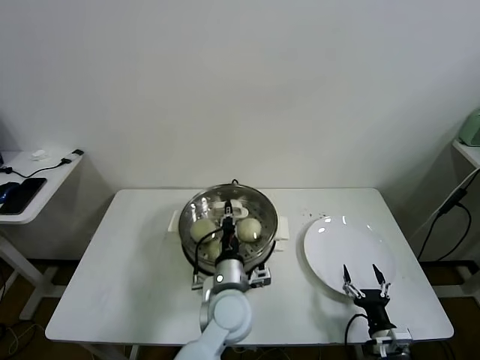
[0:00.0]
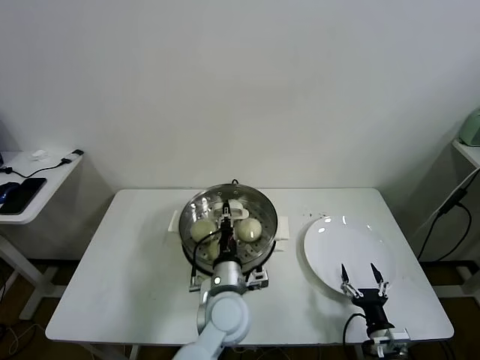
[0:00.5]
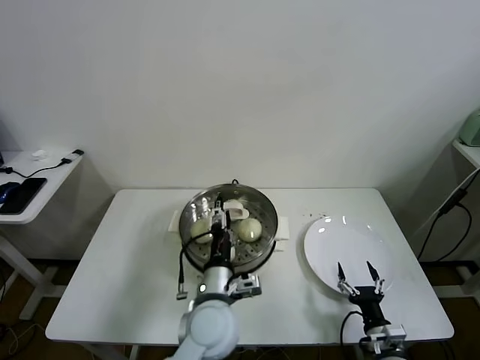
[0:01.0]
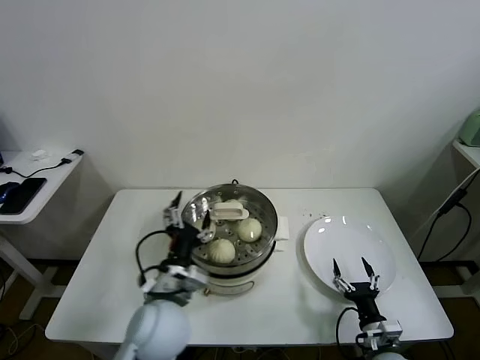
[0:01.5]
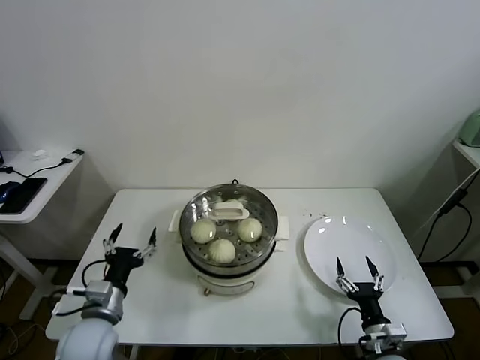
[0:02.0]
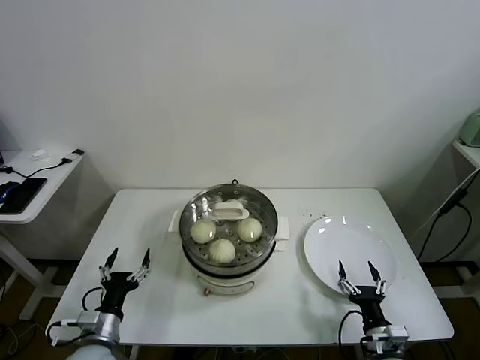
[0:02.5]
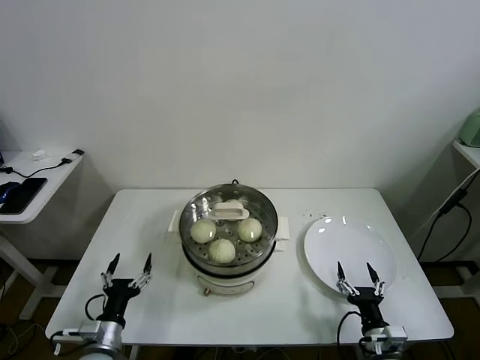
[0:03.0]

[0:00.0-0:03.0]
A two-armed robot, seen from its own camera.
Task of the whole recording: take steamed baozi put them in steamer.
0:00.0 to 0:01.5: The left gripper moves to the left and upward, approximately 10 cm, and opens.
0:01.5 to 0:03.0: The left gripper goes some 25 cm to the left and downward.

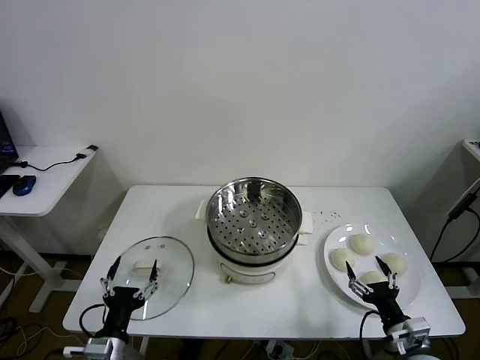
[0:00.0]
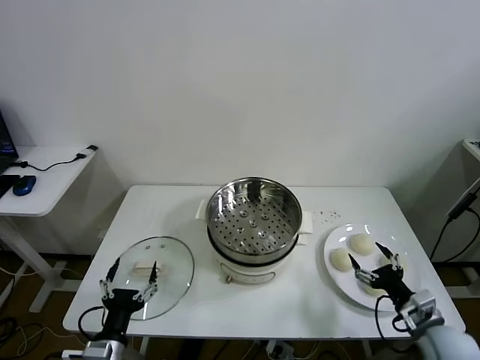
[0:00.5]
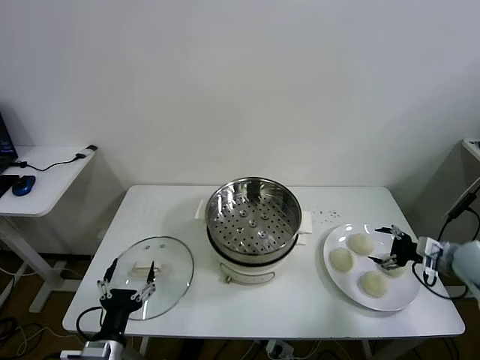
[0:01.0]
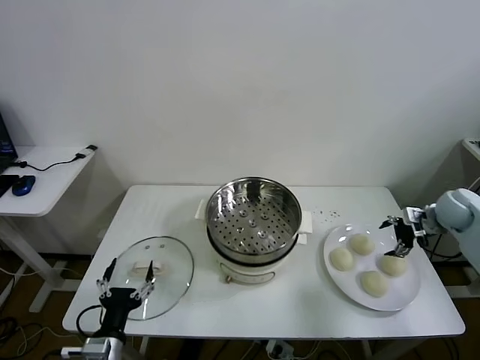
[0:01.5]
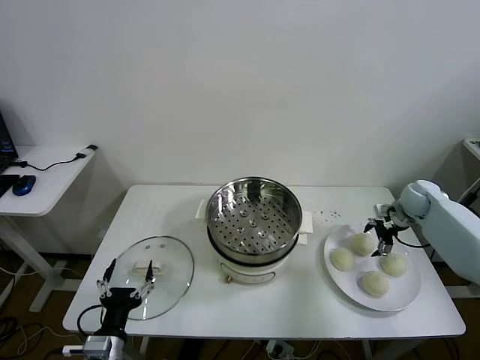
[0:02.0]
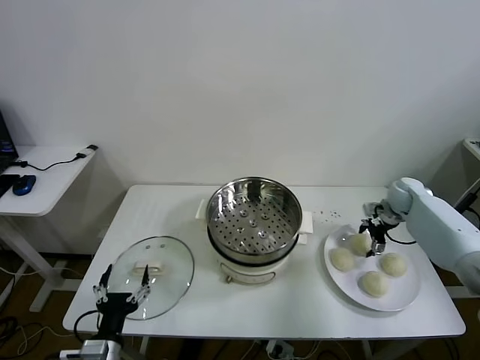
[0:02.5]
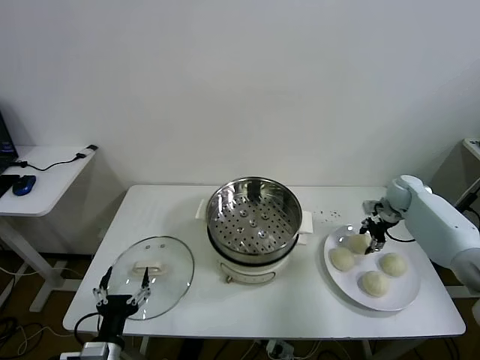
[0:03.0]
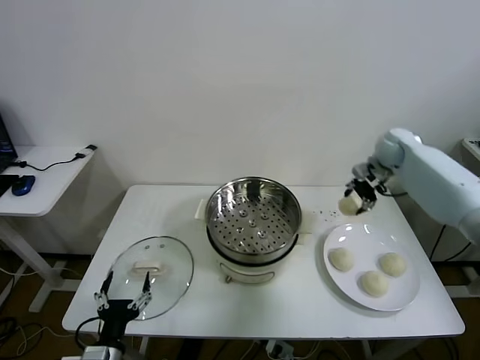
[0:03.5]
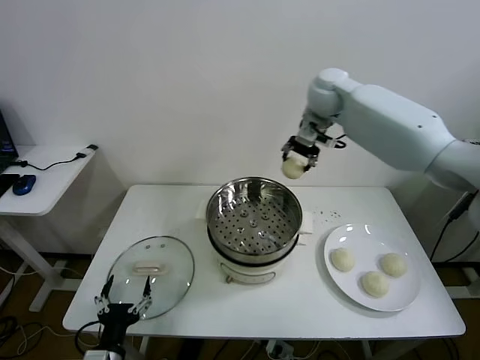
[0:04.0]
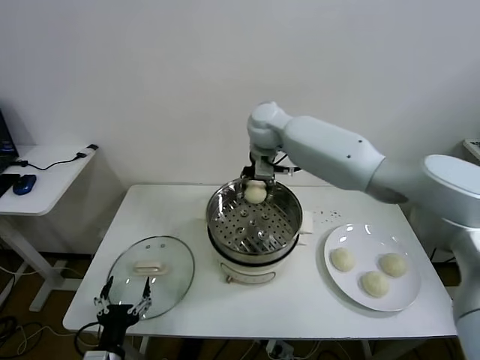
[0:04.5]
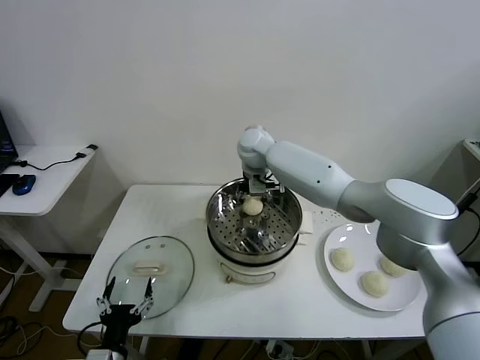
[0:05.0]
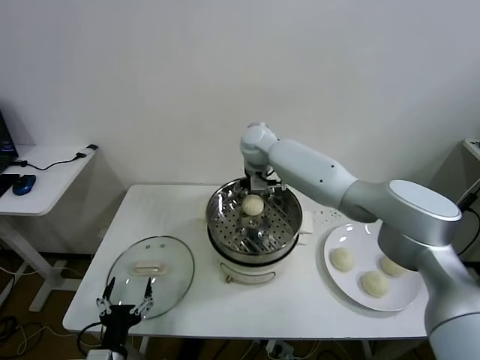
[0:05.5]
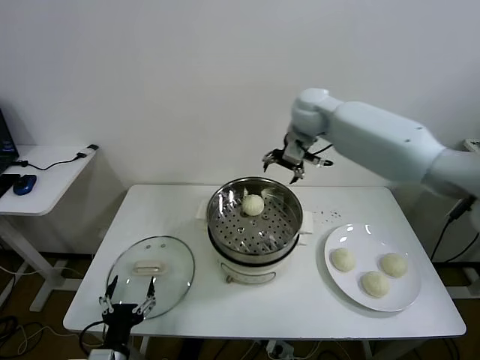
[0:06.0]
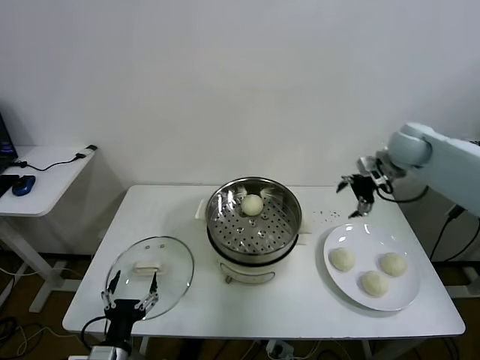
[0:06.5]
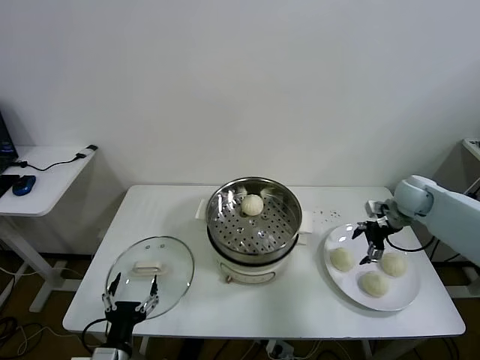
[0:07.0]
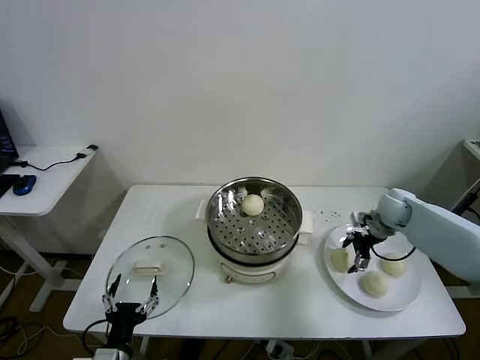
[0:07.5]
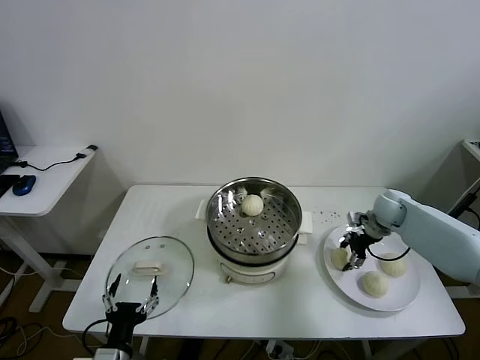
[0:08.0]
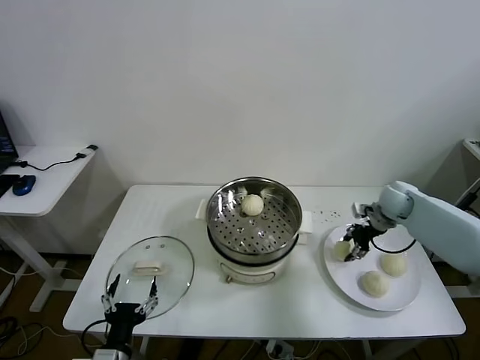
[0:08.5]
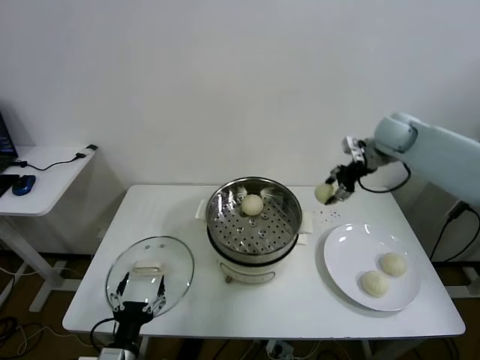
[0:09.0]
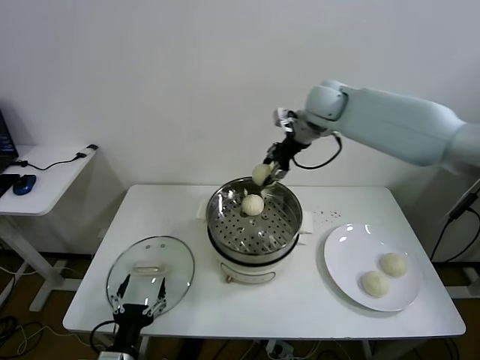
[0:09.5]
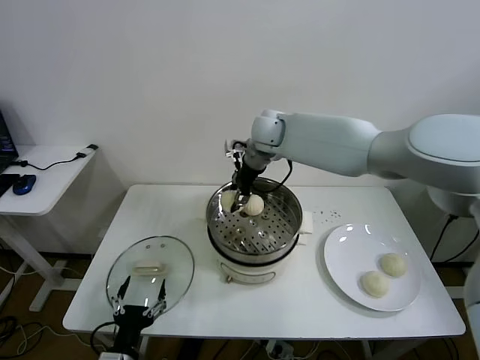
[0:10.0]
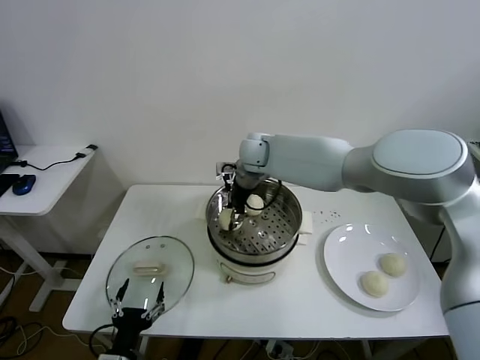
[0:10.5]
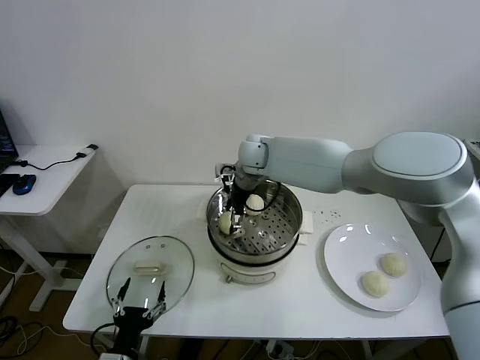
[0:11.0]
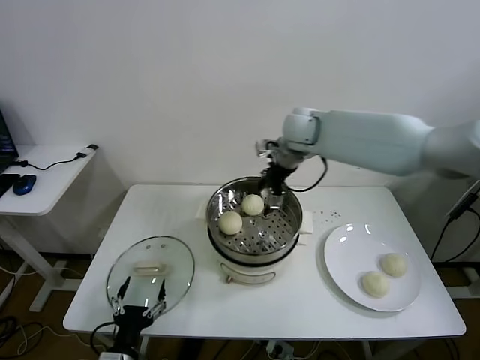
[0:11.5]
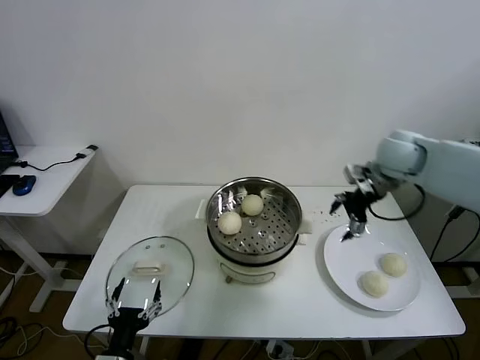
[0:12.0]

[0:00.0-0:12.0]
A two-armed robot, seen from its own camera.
Task of the whole recording: take steamed baozi put them in steamer.
Step, 0:00.0 to 0:02.5: Grasp the baozi in the plate with right gripper.
Step, 0:03.0 to 0:05.5: Place the baozi on the steamer with right gripper.
Step, 0:06.0 to 0:07.5: Grasp the baozi in the plate with right gripper.
Step, 0:08.0 to 0:11.0: Place the baozi on the steamer with right gripper.
0:02.0 to 0:04.0: The right gripper moves to the left and upward, some 40 cm, and closes.
0:04.0 to 0:06.0: The right gripper goes to the left and returns, some 10 cm each way, and opens.
0:06.0 to 0:08.0: The right gripper is displaced downward and to the right by approximately 35 cm, and closes up.
0:08.0 to 0:10.0: The right gripper travels to the left and upward by some 40 cm.
0:10.0 to 0:12.0: The right gripper heads to the right, covering roughly 30 cm, and opens up.

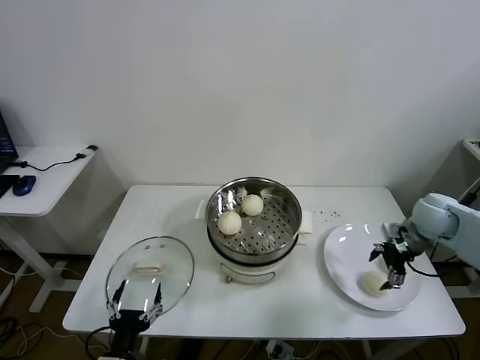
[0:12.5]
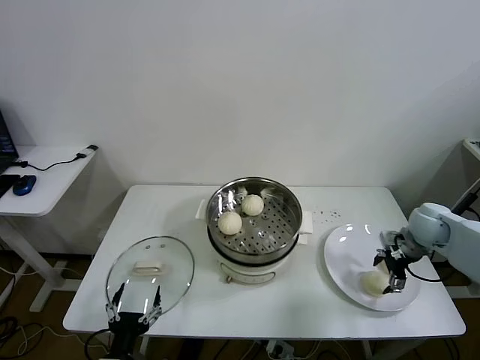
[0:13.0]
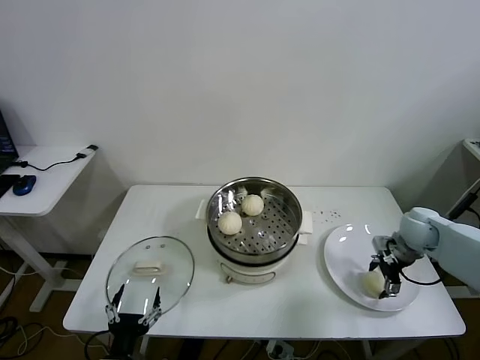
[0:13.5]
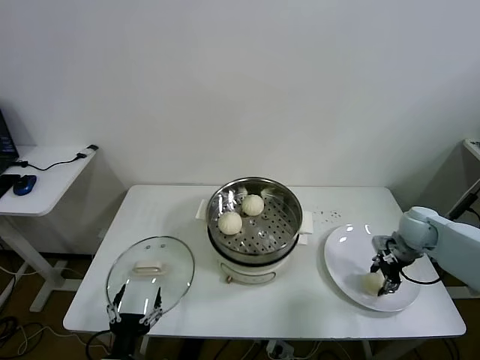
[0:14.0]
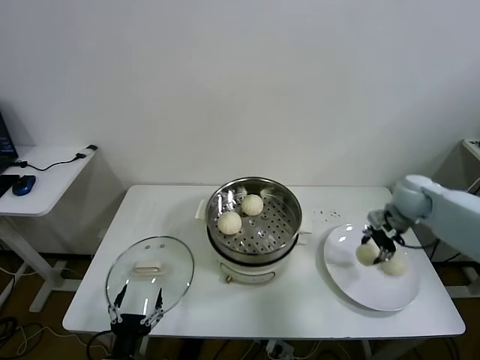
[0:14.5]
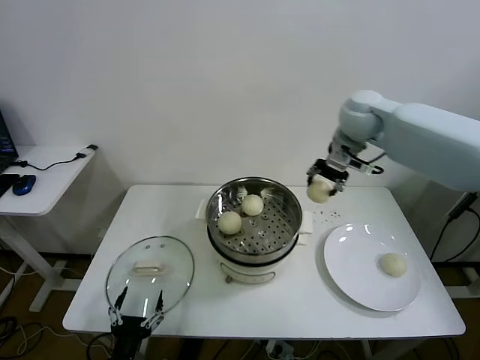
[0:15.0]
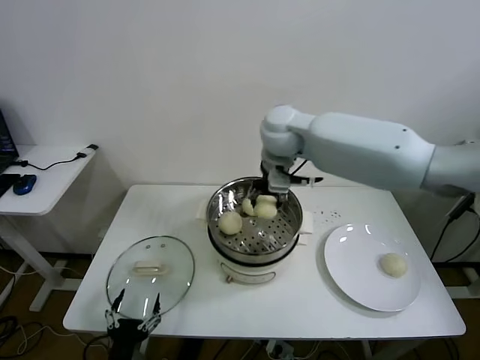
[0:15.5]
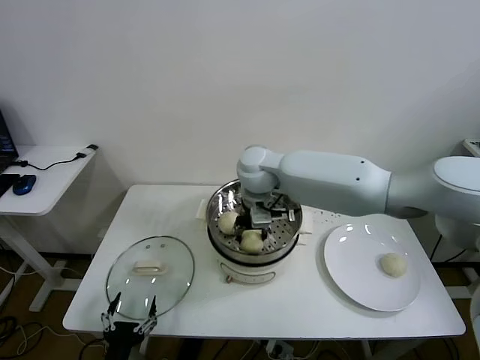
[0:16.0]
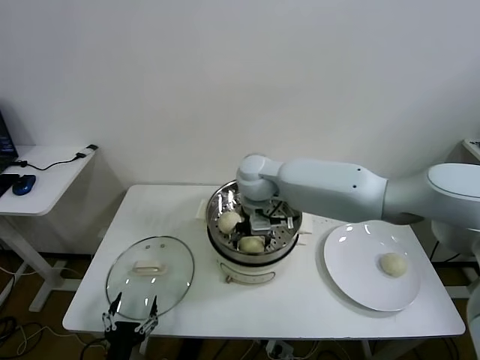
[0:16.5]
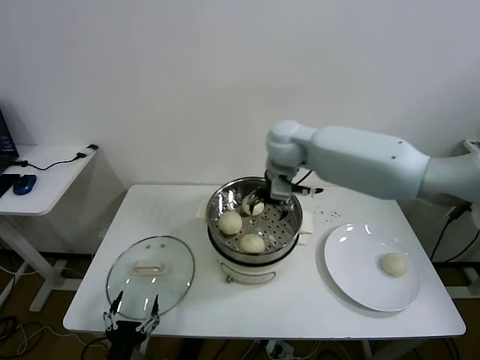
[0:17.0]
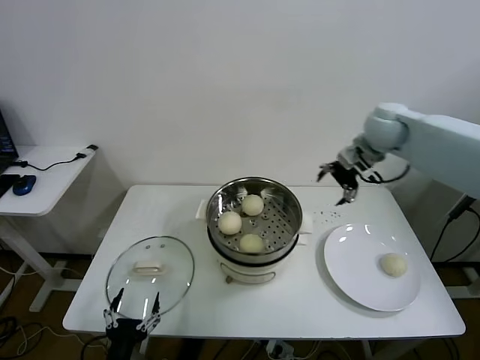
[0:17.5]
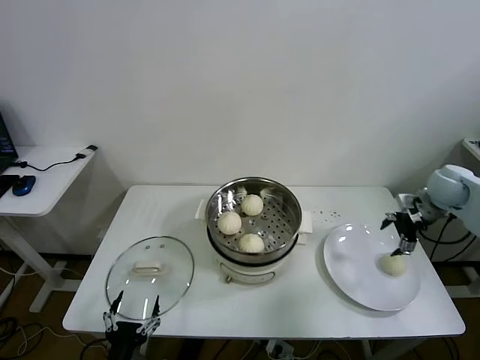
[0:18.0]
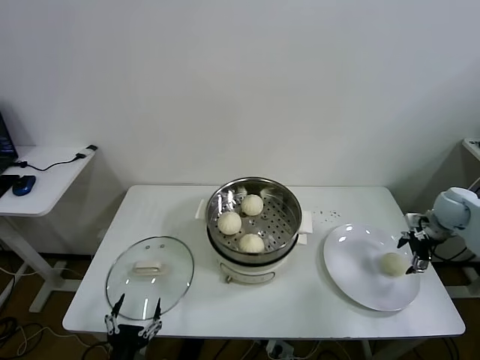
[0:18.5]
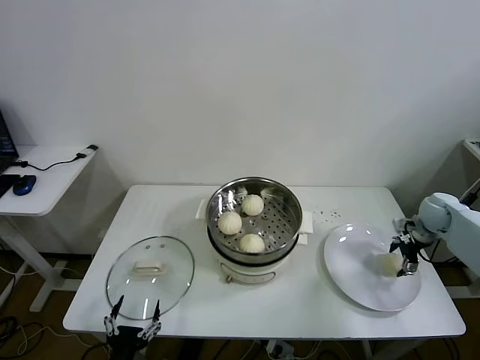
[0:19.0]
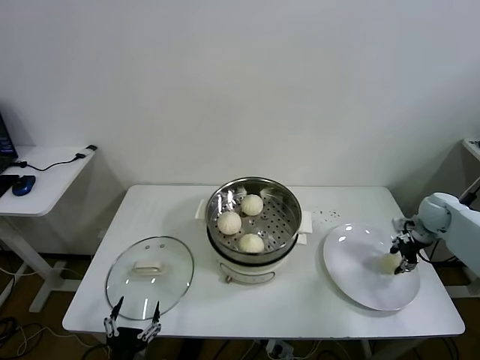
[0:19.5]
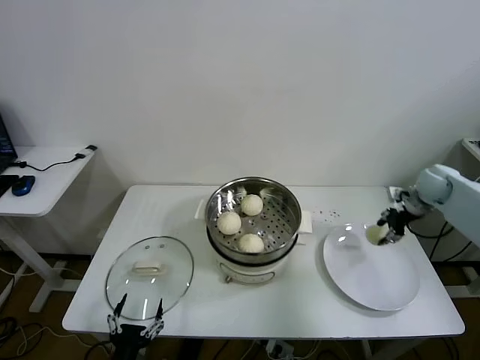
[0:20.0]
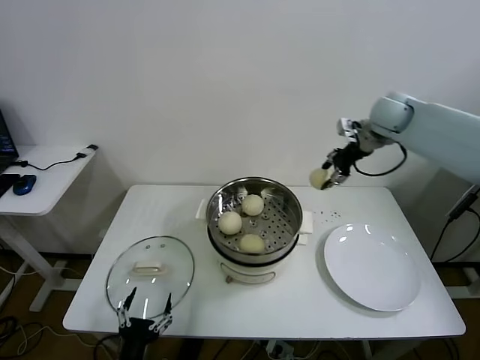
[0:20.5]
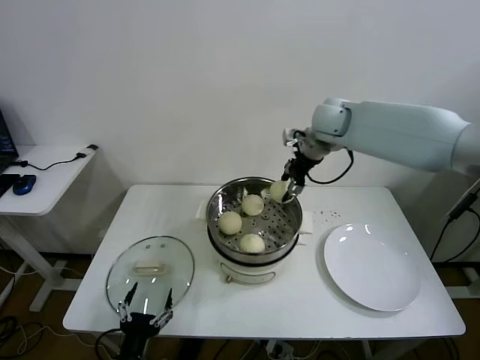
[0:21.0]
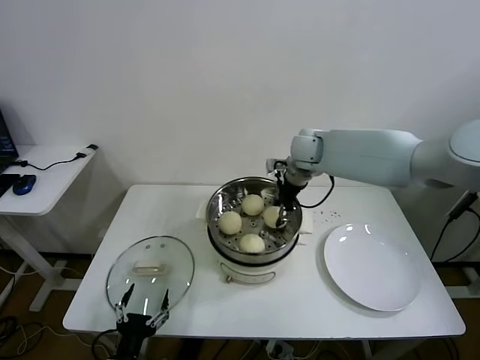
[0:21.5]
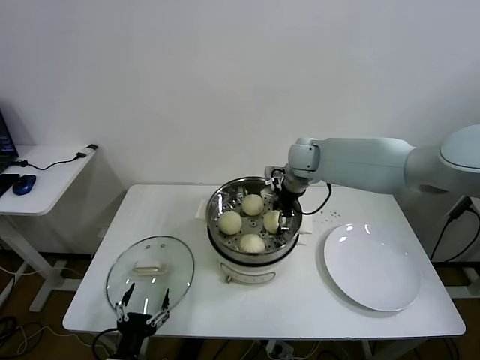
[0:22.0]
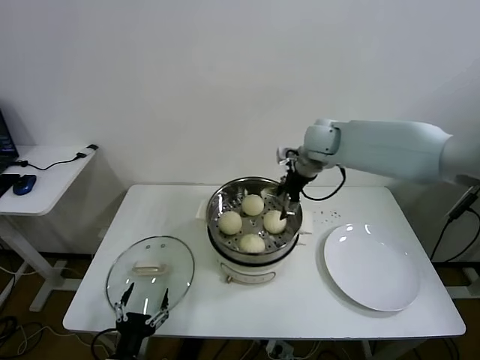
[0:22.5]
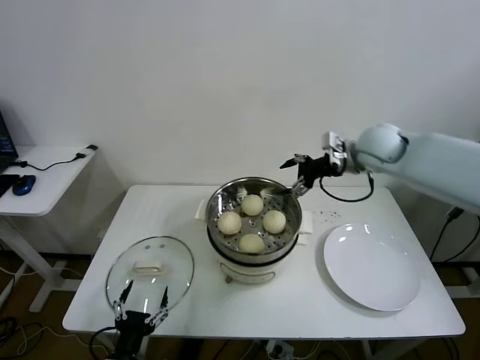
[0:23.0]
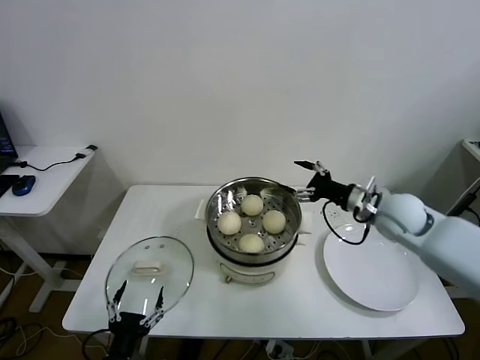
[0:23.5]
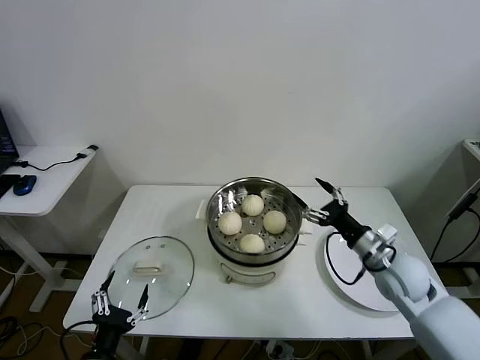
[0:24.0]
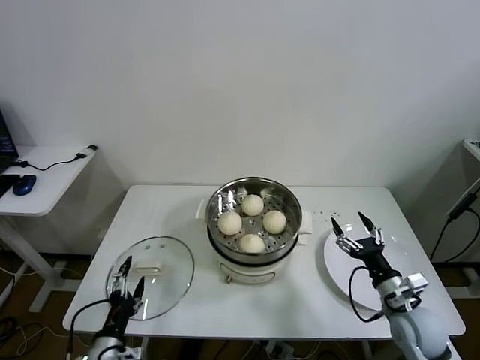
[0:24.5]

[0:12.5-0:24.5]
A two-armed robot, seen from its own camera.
Task of the whole recording: take steamed baozi put them in steamer.
Step, 0:14.0 to 0:16.5: Place the baozi on the steamer with right gripper.
Step, 0:17.0 to 0:19.0: Grasp the baozi in the plate with right gripper.
Step, 0:19.5 to 0:22.0: Place the baozi on the steamer with right gripper.
0:12.5 to 0:14.5: The right gripper goes roughly 5 cm forward, moves approximately 5 cm downward and comes back, and closes its fingers.
0:14.5 to 0:16.5: The right gripper moves to the left, roughly 35 cm, and opens.
0:16.5 to 0:18.5: The right gripper is displaced to the right by some 50 cm.
0:18.5 to 0:20.5: The right gripper moves upward, to the left and forward, approximately 30 cm, and closes its fingers.
0:20.5 to 0:22.5: The right gripper heads to the left and downward, covering about 15 cm, and opens up.
0:22.5 to 0:24.5: The left gripper moves about 5 cm, while the right gripper goes about 40 cm backward, downward and to the right.
